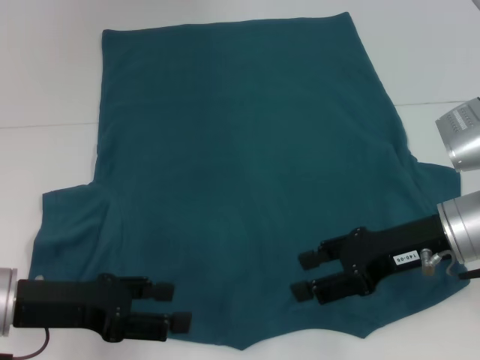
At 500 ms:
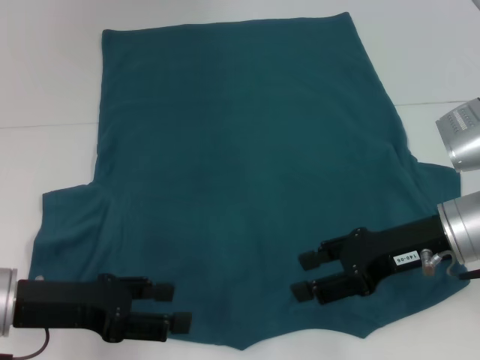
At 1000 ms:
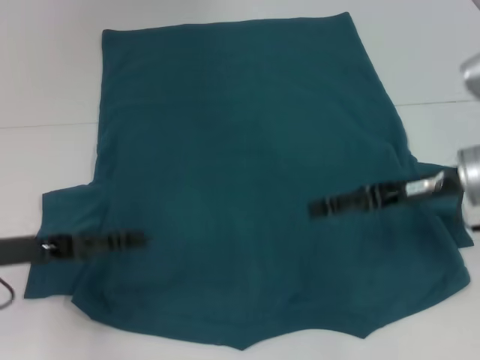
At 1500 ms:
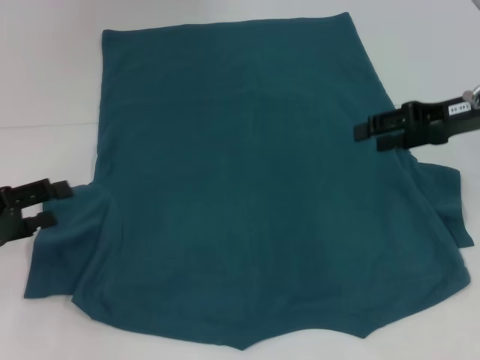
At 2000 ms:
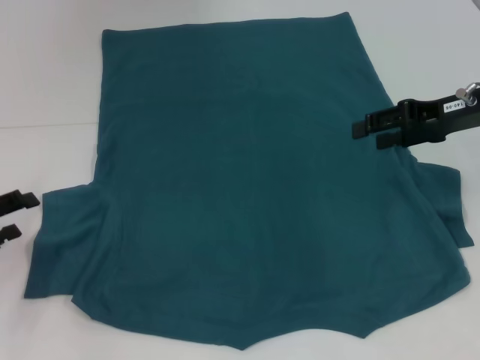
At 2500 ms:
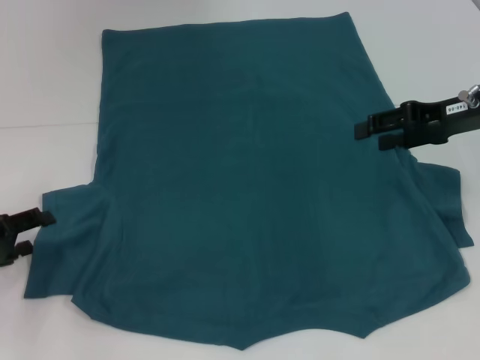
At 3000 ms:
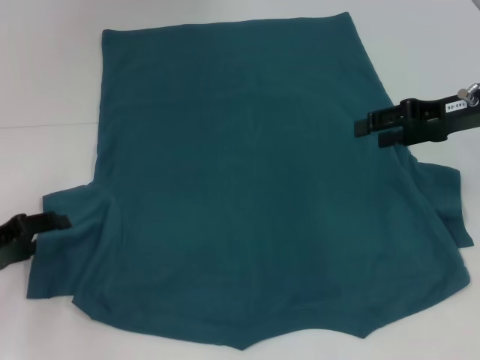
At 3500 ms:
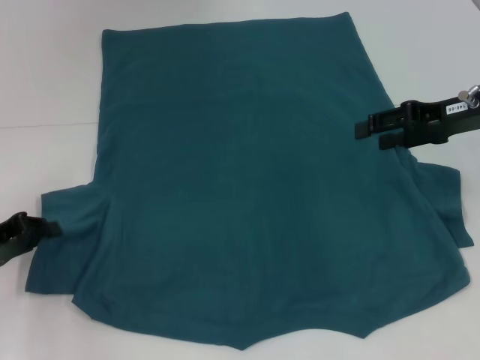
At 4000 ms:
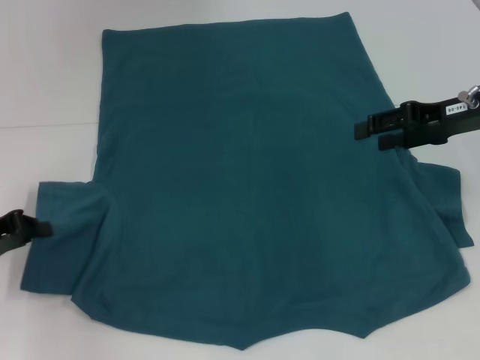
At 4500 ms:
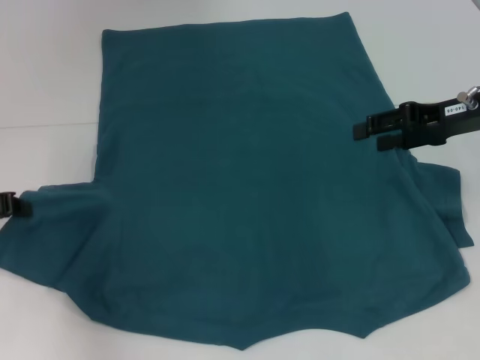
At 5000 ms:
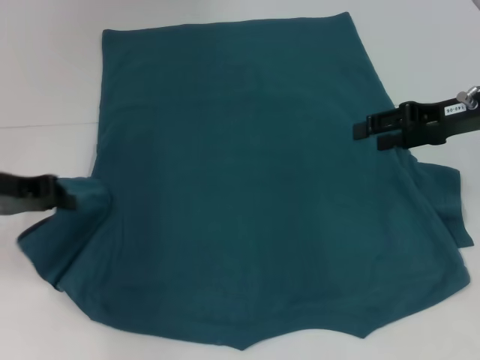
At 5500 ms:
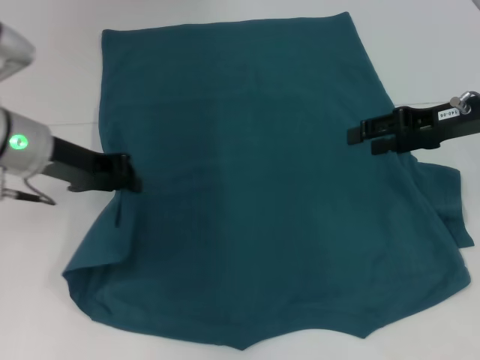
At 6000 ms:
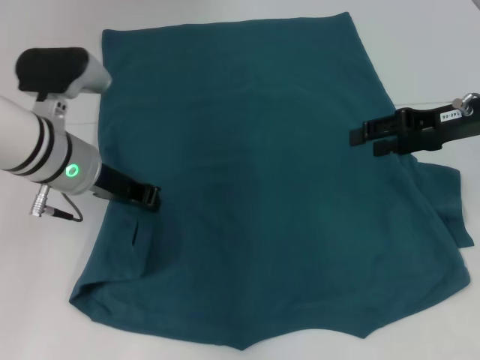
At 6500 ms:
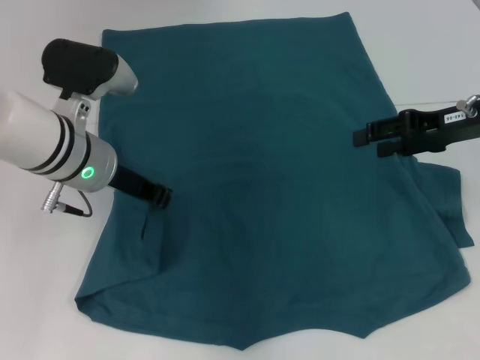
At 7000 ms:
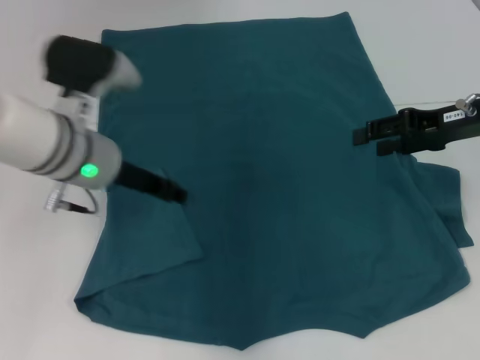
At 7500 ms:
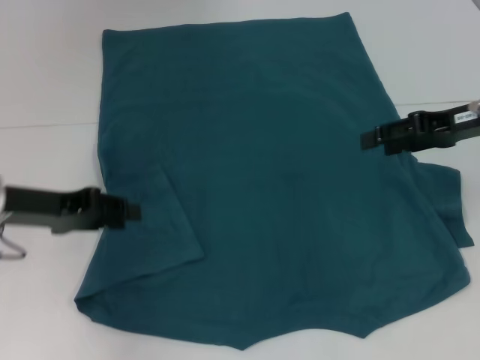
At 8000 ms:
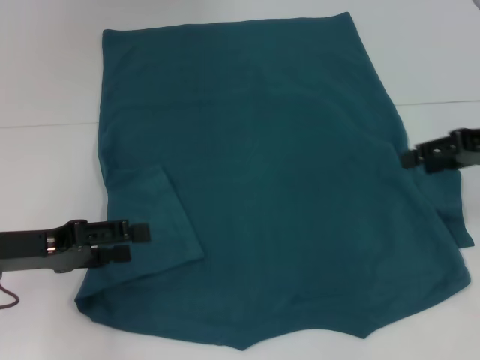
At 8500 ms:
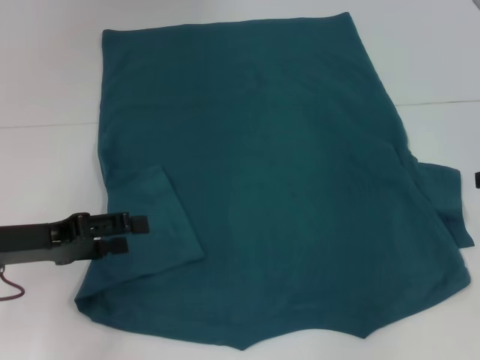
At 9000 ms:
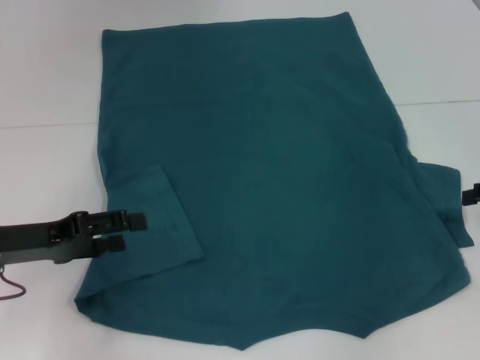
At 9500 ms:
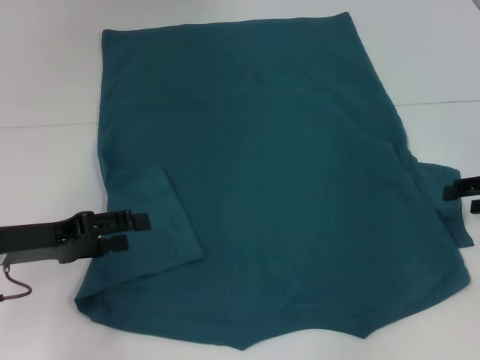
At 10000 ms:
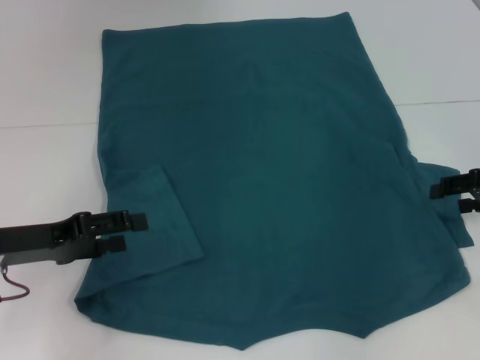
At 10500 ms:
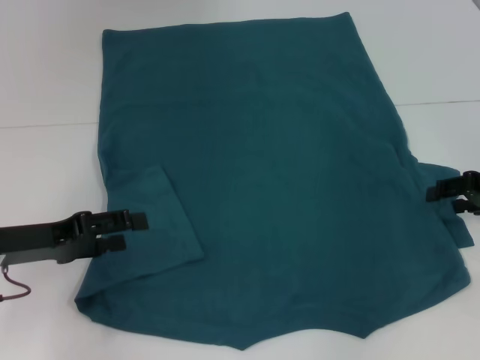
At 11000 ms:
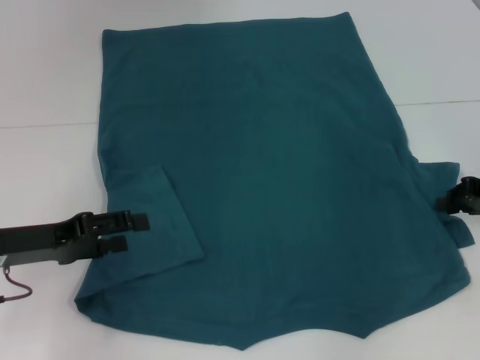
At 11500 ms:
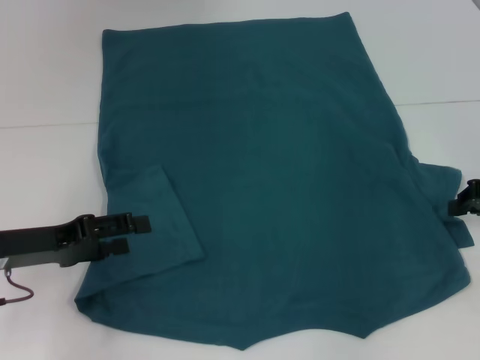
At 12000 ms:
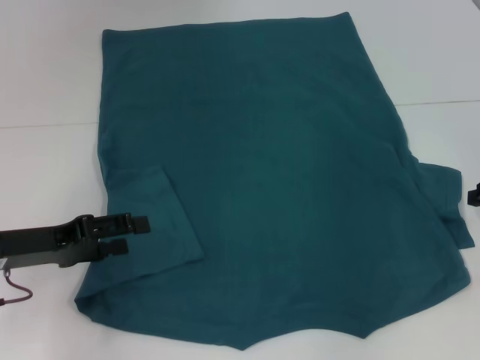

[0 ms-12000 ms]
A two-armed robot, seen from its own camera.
Step, 0 ms to 6500 ms: Fold the bottom left sleeve with your left hand.
0 ms to 2000 ms: The right gripper travels forward, to the right and upward by some 15 cm. Meanwhile the left gripper goes roughly 10 cm to the left.
2000 ms to 4000 ms: The left gripper closes up.
4000 ms to 6000 ms: The left gripper goes about 20 cm to the right and forward.
6000 ms to 8000 ms: The right gripper shifts by roughly 5 cm; the left gripper shifts approximately 15 cm to the left and backward, and opens.
8000 ms to 10000 ms: The right gripper shifts roughly 5 cm downward.
10000 ms to 12000 ms: The right gripper closes its fingers.

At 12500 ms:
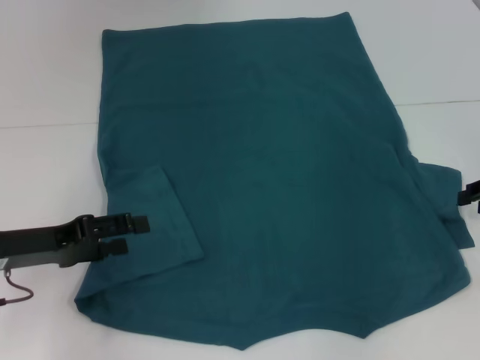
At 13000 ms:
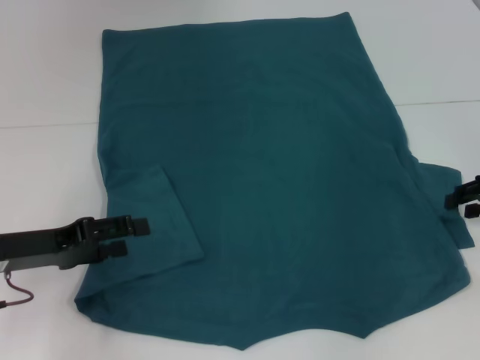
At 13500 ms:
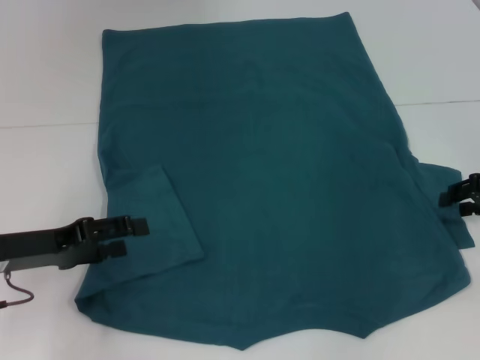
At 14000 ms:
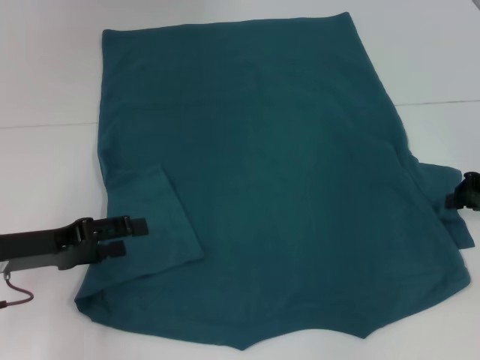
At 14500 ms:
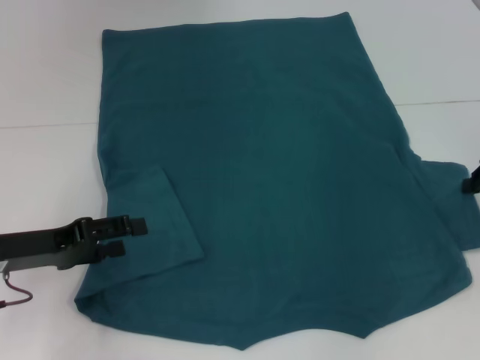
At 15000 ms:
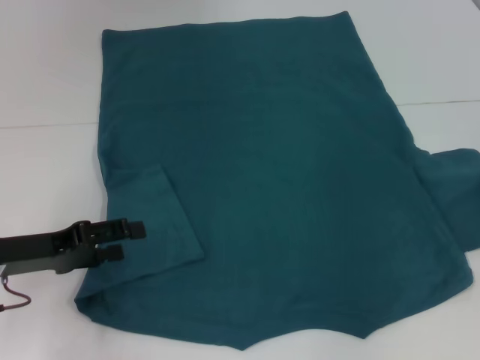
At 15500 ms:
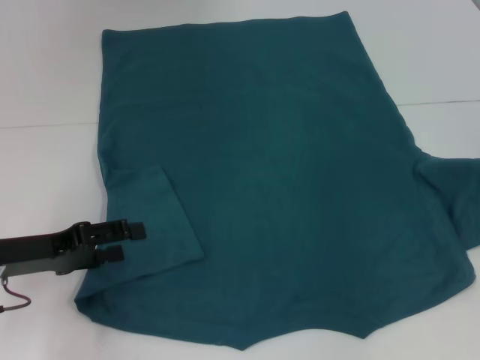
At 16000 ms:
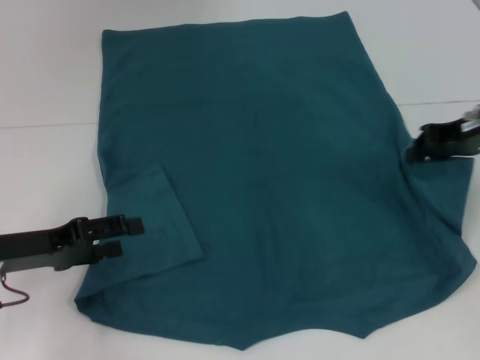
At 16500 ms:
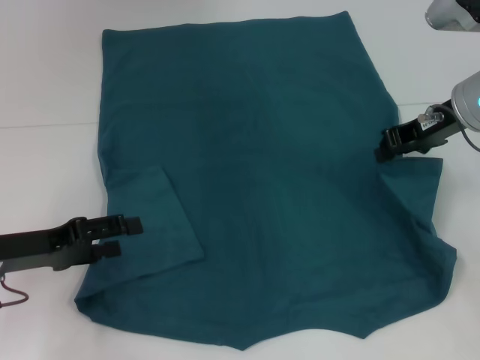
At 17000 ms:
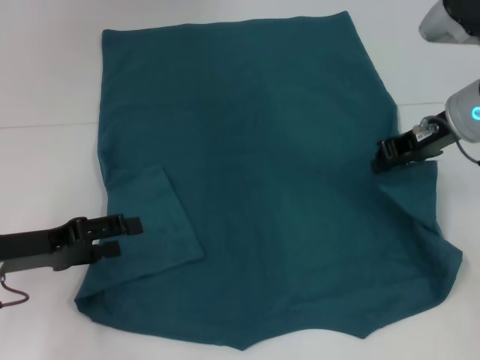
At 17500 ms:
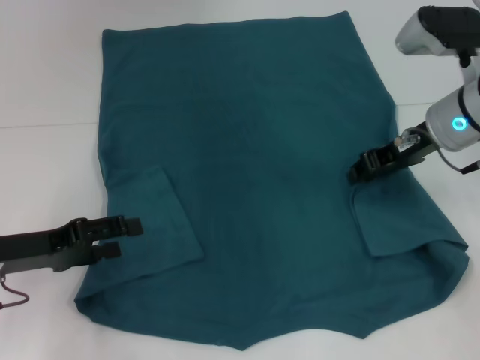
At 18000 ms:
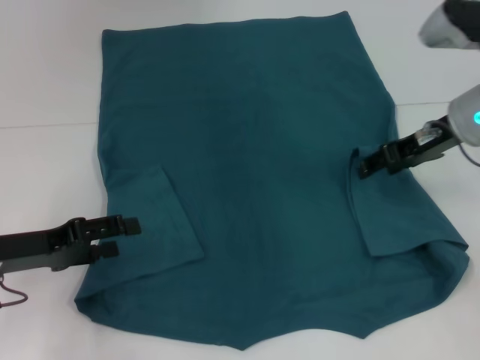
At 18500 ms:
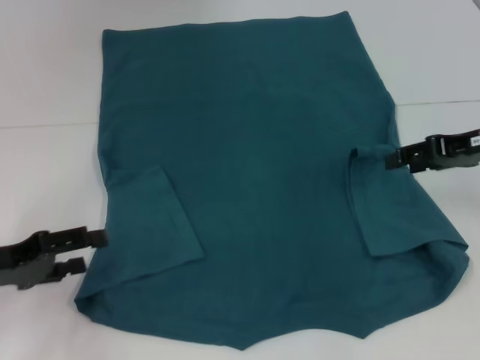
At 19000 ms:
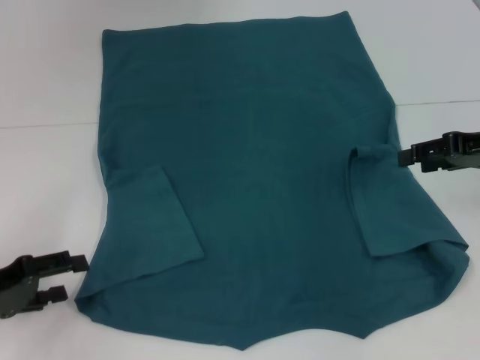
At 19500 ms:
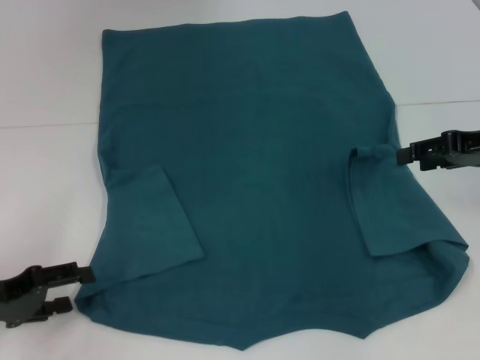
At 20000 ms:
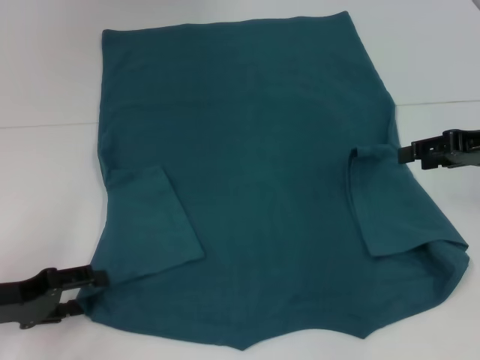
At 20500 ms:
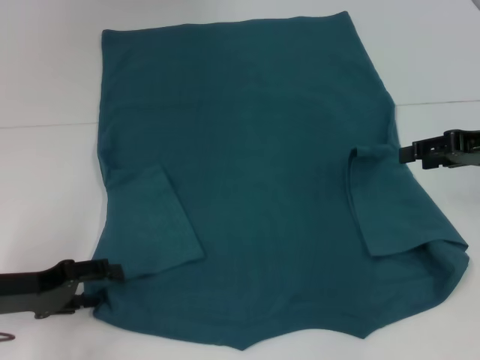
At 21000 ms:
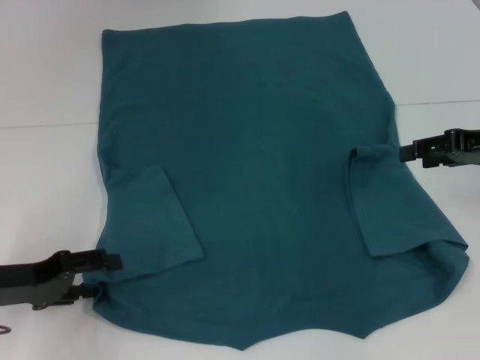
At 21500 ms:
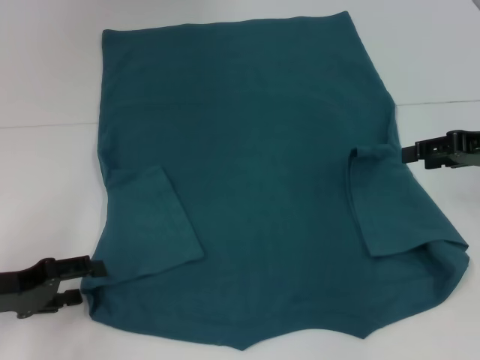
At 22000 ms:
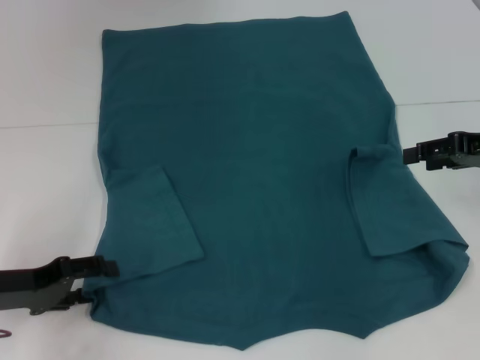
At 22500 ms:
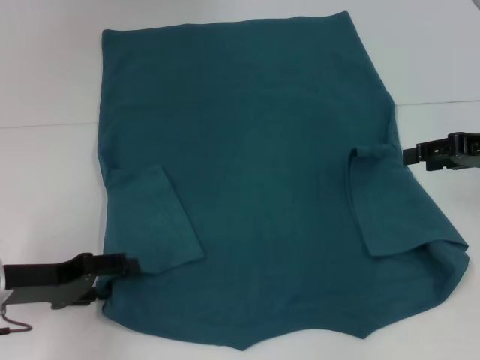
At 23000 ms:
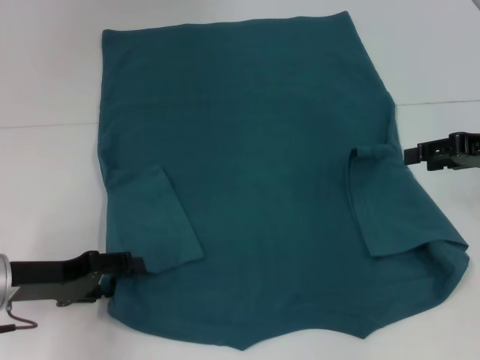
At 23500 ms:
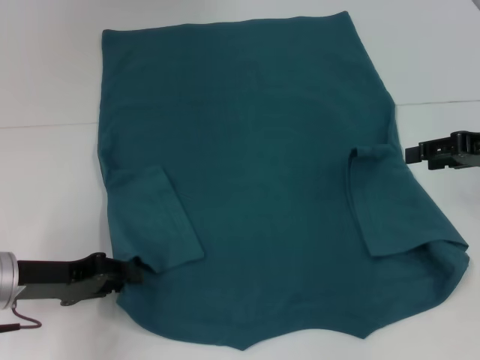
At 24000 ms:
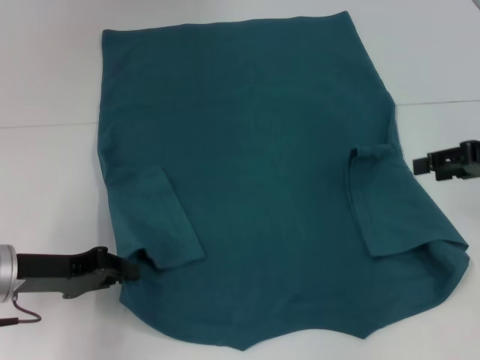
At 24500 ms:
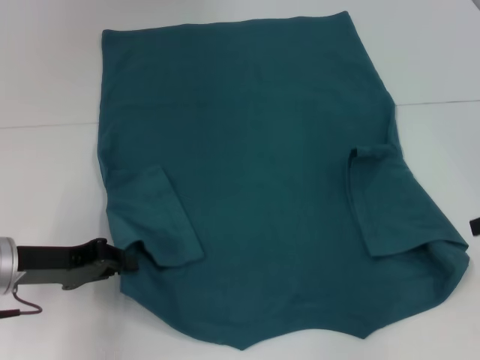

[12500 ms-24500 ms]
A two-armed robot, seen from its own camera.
Step, 12500 ms to 18000 ms: Fold the bottom right sleeve to the right.
Step, 18500 ms to 24000 ms: Grab the bottom left corner with your left hand.
12500 ms to 14500 ms: The right gripper closes up.
14500 ms to 16500 ms: The right gripper moves to the left, upward and forward, some 15 cm.
16500 ms to 18500 ms: The right gripper moves to the right, about 5 cm, and opens up.
18500 ms to 22500 ms: The grippers stay close to where they were, moving slightly.
22500 ms to 24500 ms: The right gripper ends up roughly 5 cm from where it was. The left gripper closes up.

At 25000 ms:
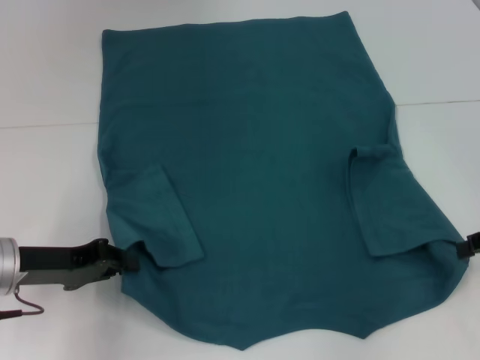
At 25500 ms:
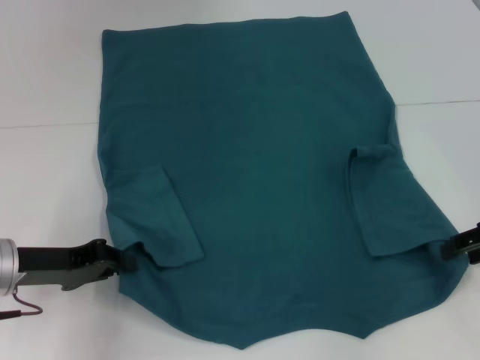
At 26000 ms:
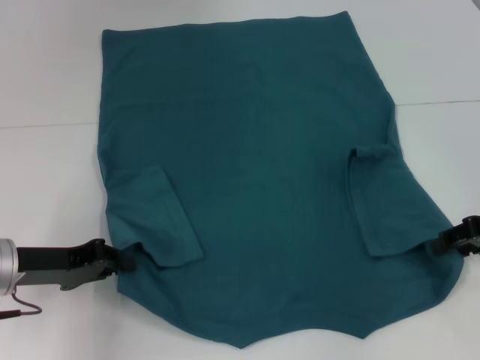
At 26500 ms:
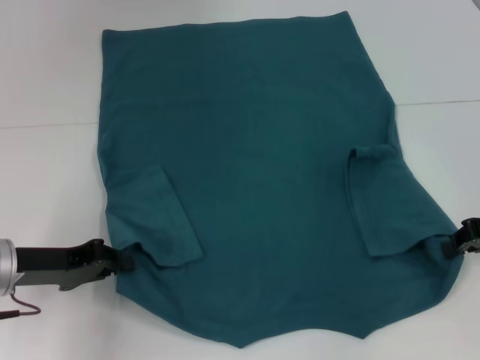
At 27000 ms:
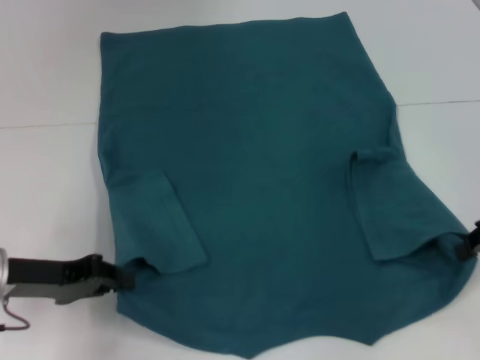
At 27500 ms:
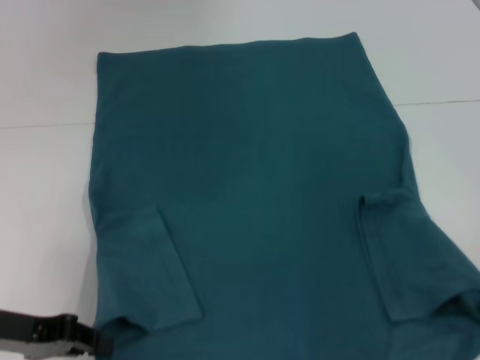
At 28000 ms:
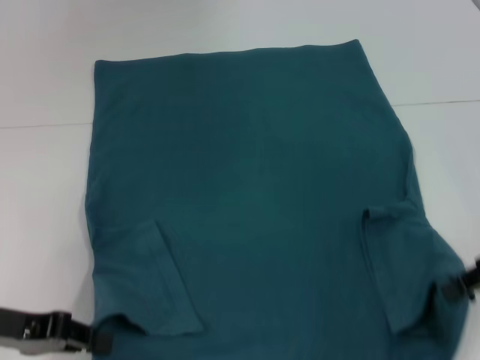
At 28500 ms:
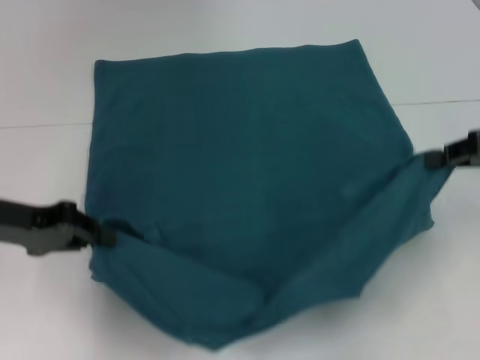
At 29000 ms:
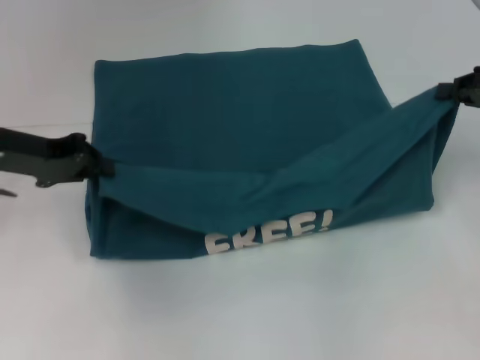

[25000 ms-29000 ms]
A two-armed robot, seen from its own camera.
25000 ms to 27000 ms: The right gripper closes its fingers.
27000 ms to 29000 ms: The left gripper shifts some 15 cm forward and upward. The right gripper is displaced upward by some 5 cm.
